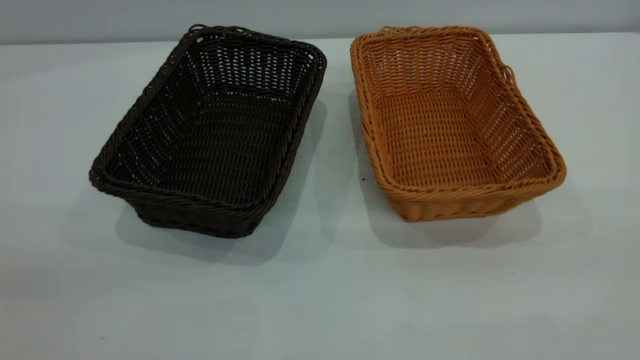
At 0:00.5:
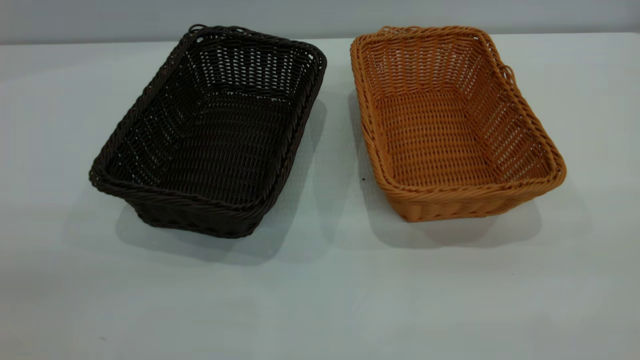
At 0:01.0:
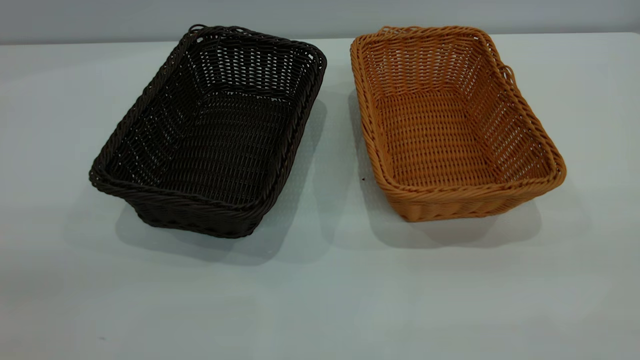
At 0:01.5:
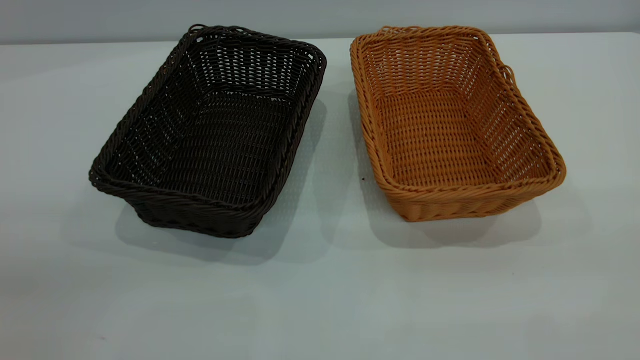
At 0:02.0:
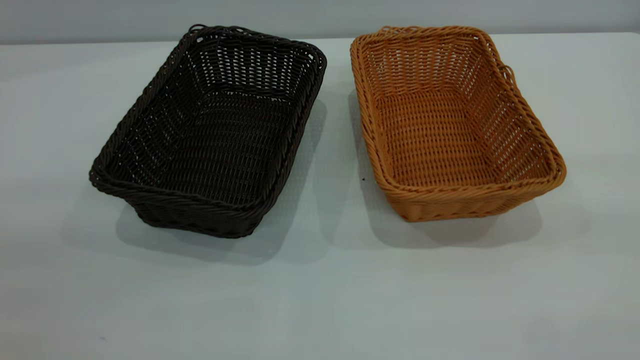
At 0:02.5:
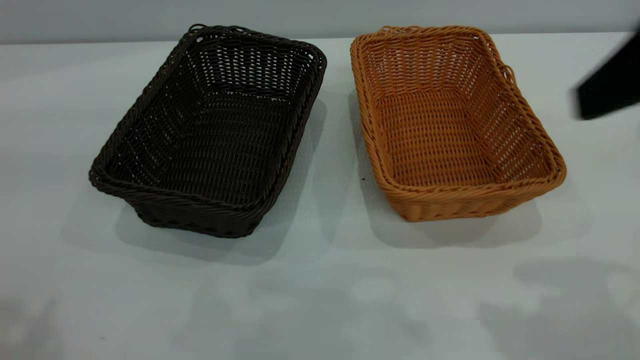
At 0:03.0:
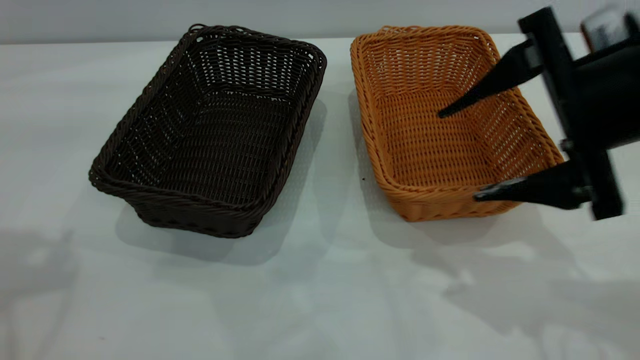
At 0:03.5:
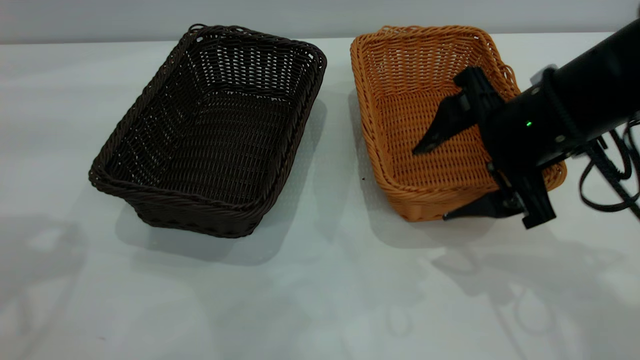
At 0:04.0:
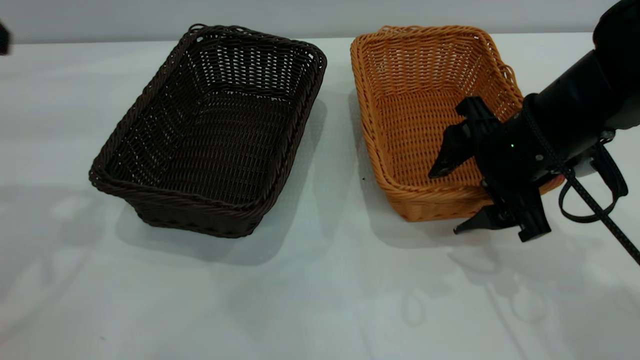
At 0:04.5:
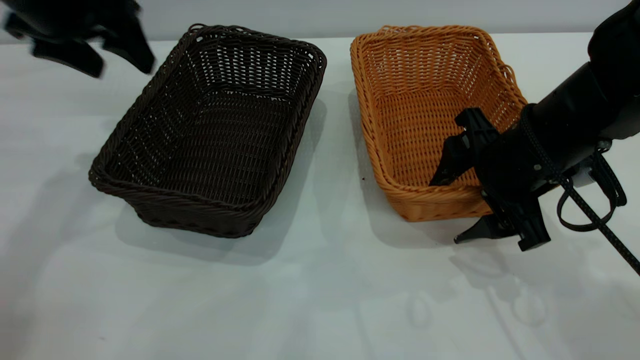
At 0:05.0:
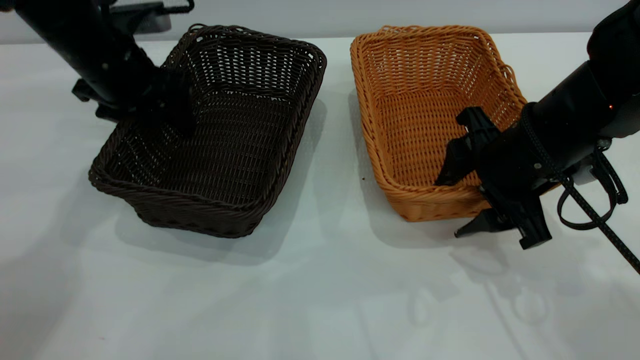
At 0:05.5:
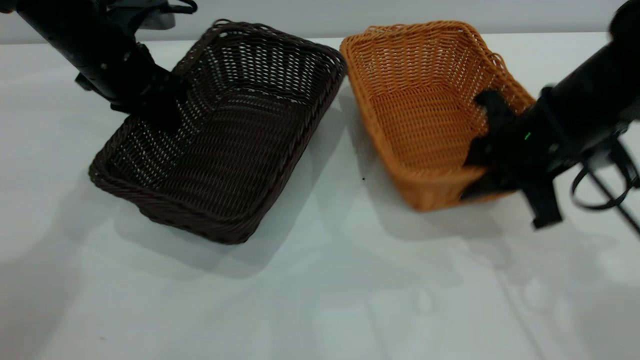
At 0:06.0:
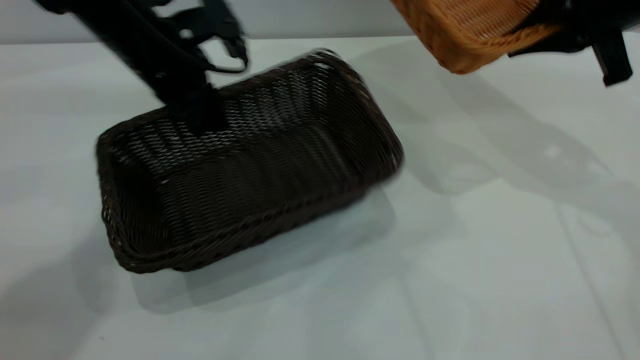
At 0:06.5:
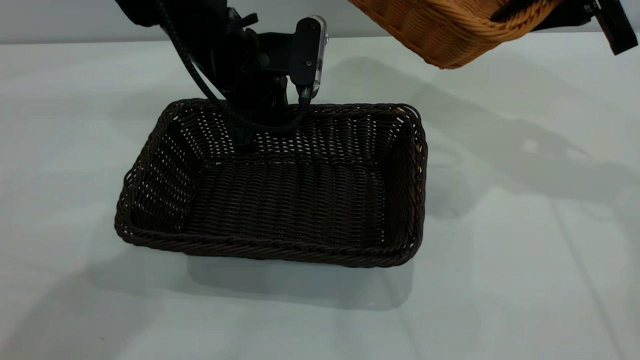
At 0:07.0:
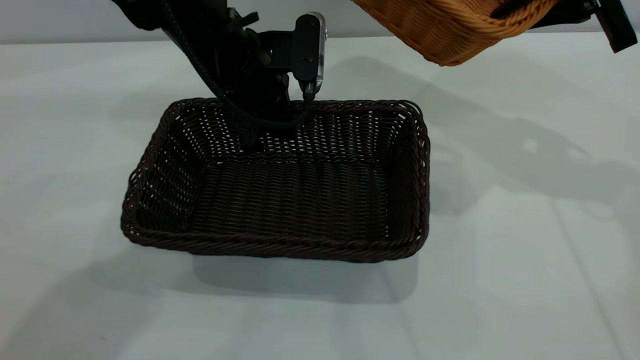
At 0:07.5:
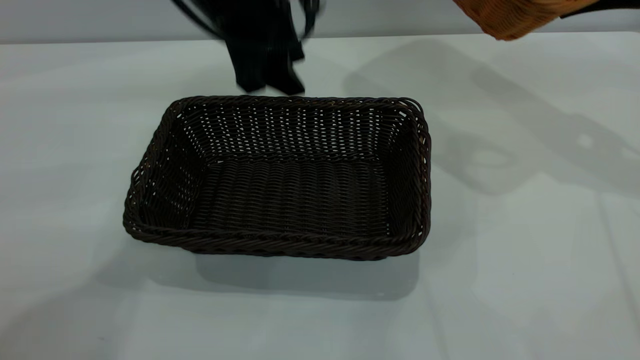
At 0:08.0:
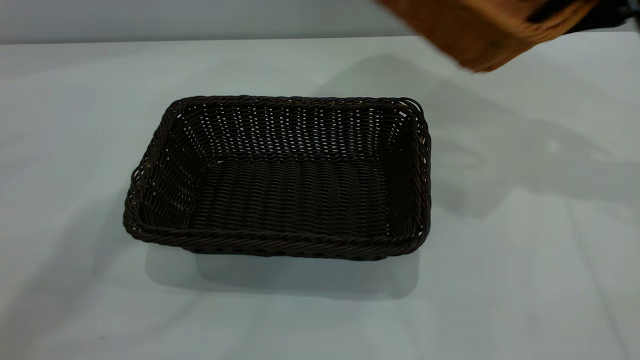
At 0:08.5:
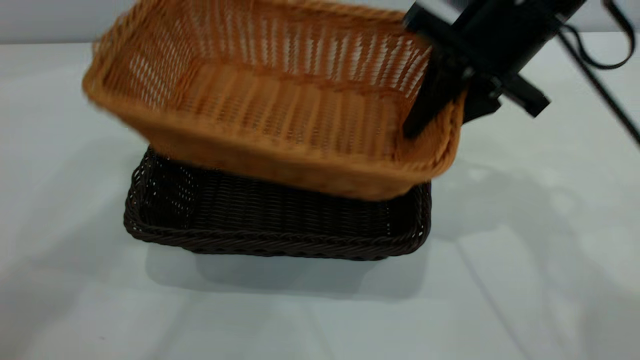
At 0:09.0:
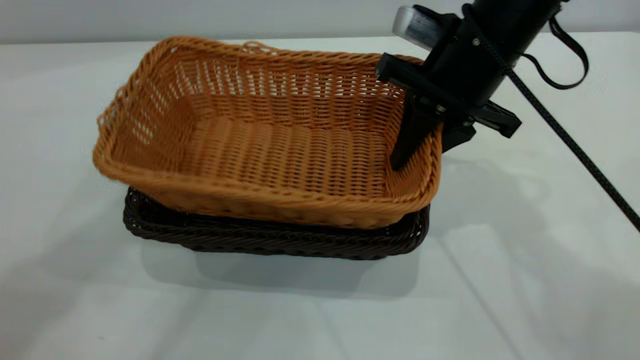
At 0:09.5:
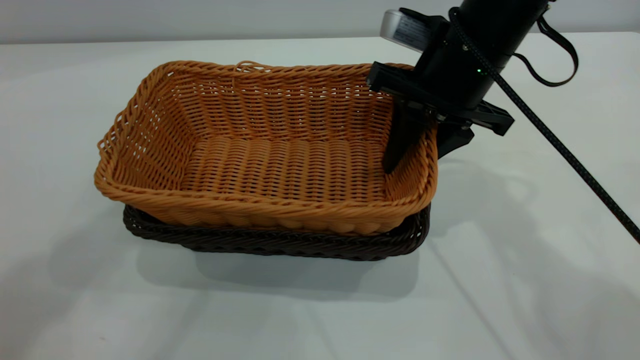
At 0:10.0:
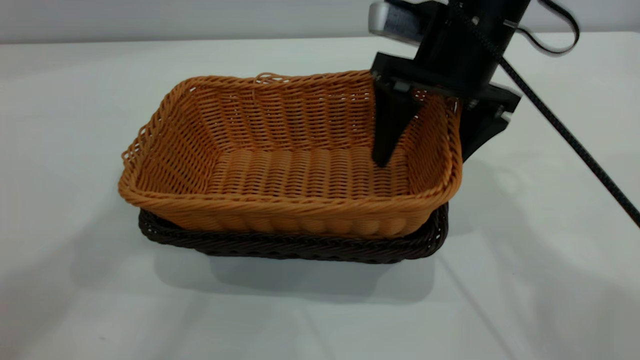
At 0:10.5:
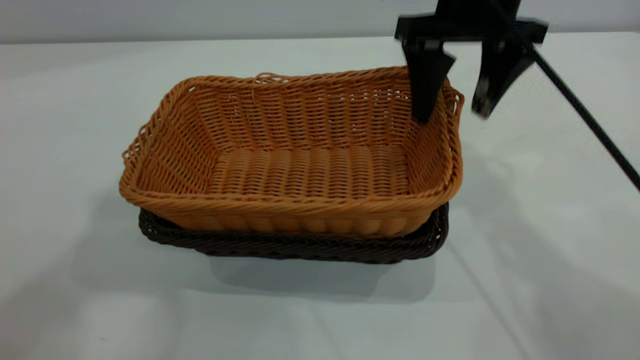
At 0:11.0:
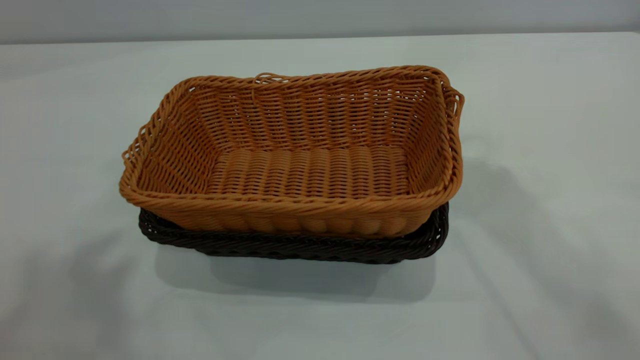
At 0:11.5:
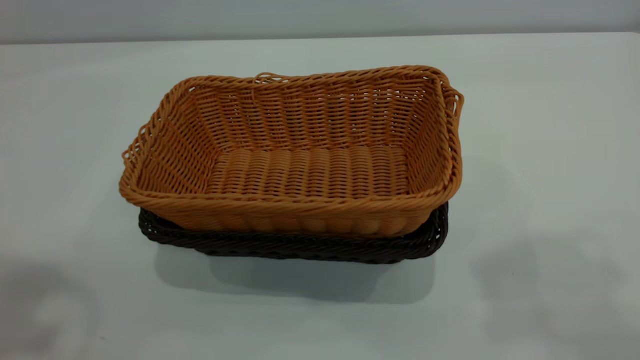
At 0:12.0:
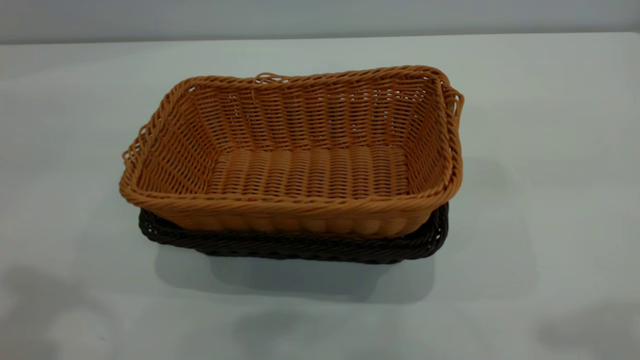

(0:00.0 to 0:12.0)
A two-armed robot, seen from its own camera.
Task of the whole recording: the left gripper grasp the black basket and place it in the center of the table, the right gripper grasp the brown basket and place it inside the black one.
Step, 0:00.0 - 0:05.5: Pick up the light basket with the right gripper.
Step, 0:06.0 - 0:07.5: Move the dark basket to the center of view.
Step, 0:08.0 - 0:10.5: Place the light basket on the dark basket.
0:02.0 - 0:04.0: The right gripper shifts roughly 35 cm downward and forward.
0:04.0 - 0:06.0: The right gripper heads upward, to the right and forward, covering some 15 cm, and closes up. The left gripper goes roughly 25 cm to the right, downward and forward, and closes up.
0:06.0 - 0:08.0: The left gripper travels upward by approximately 30 cm, and opens.
0:08.0 - 0:10.0: The left gripper is displaced upward and backward by approximately 10 cm, while the right gripper moves to the left, some 15 cm, and opens.
0:10.0 - 0:12.0: The right gripper is displaced backward, upward and to the right by about 30 cm. The left gripper is displaced downward, backward and to the left by about 20 cm.

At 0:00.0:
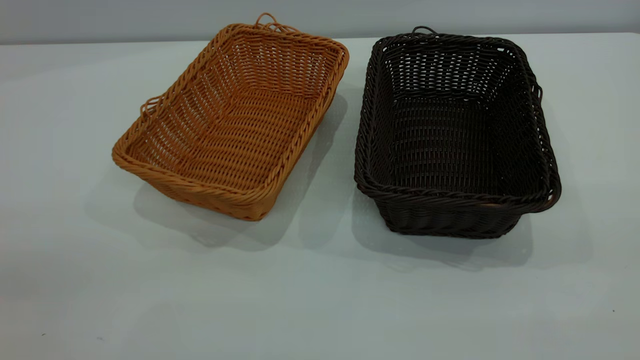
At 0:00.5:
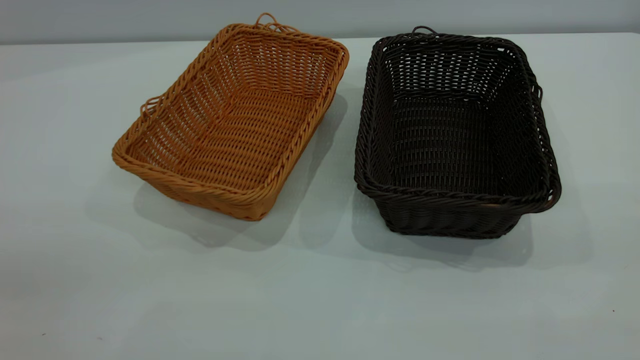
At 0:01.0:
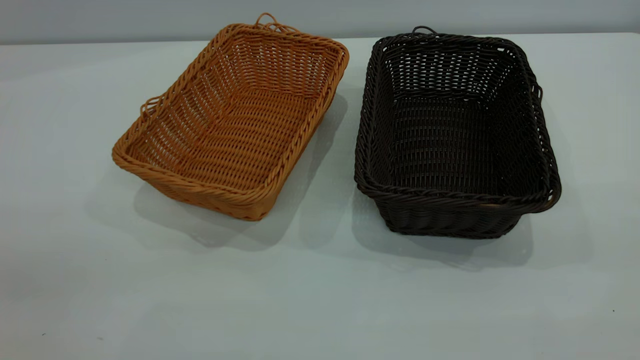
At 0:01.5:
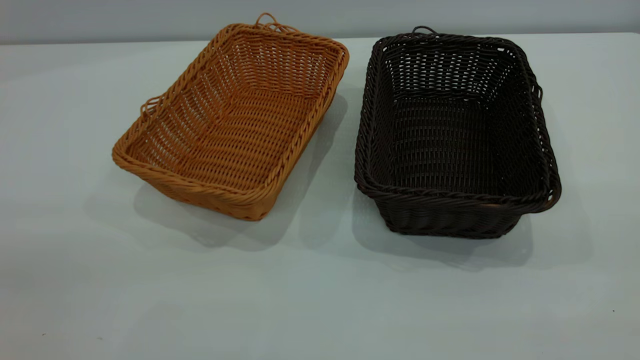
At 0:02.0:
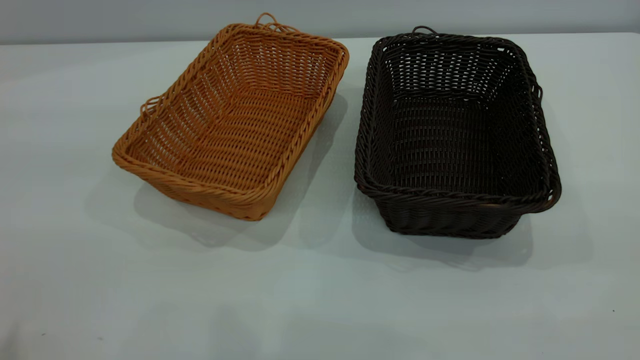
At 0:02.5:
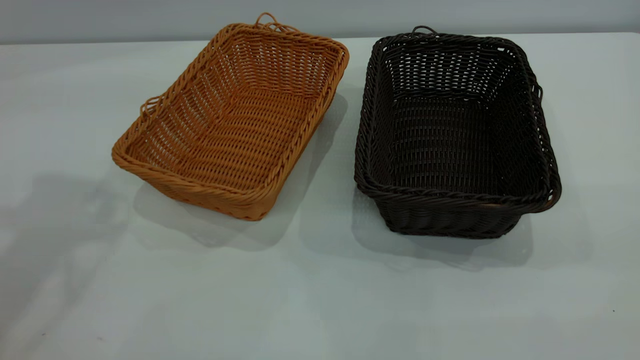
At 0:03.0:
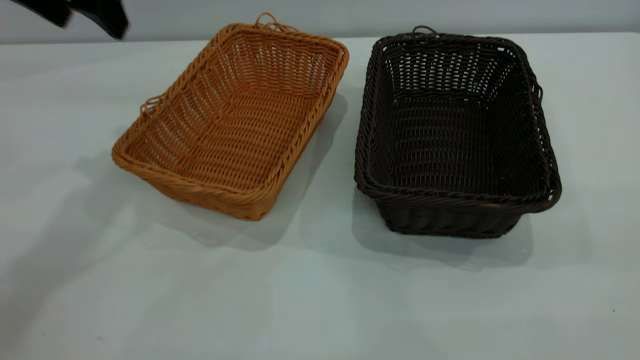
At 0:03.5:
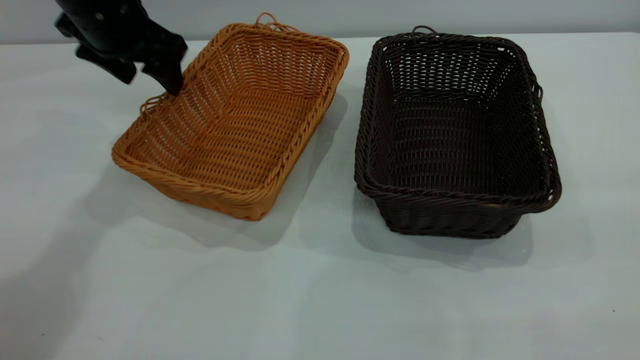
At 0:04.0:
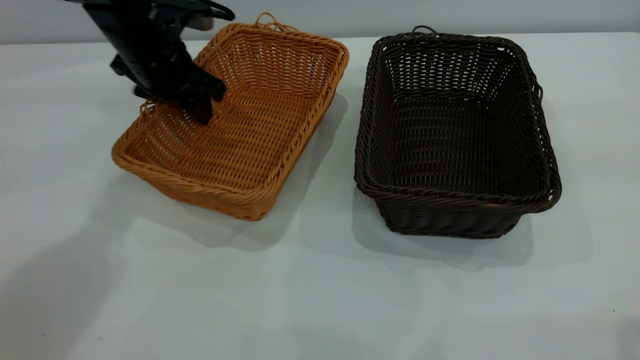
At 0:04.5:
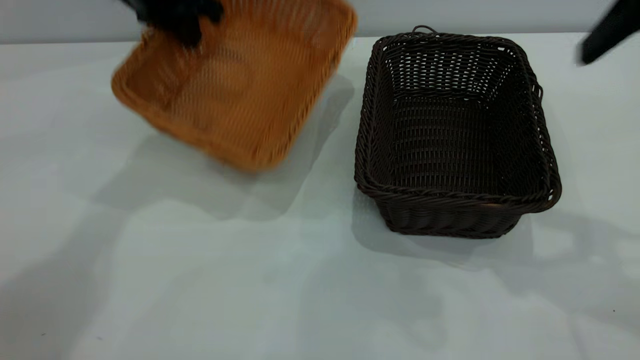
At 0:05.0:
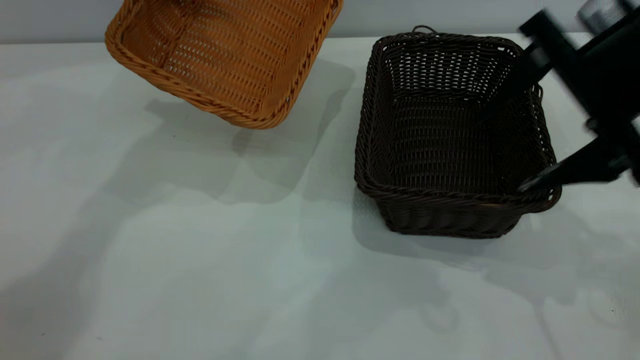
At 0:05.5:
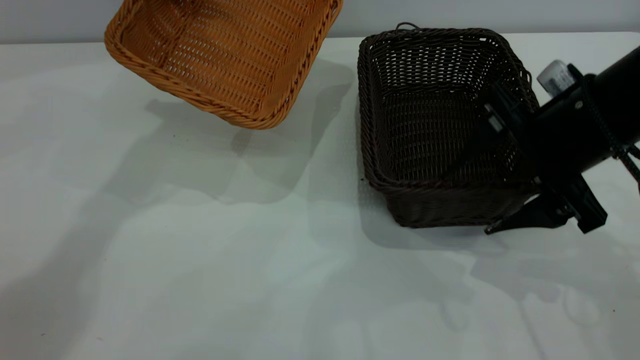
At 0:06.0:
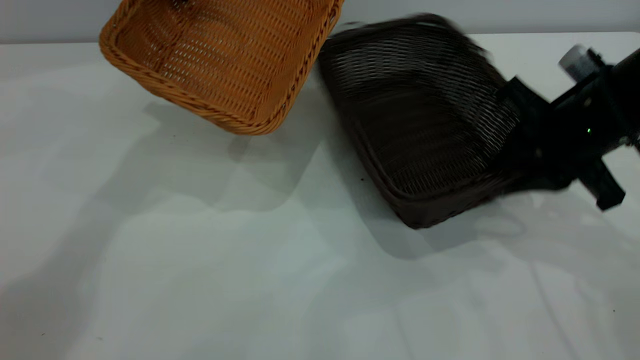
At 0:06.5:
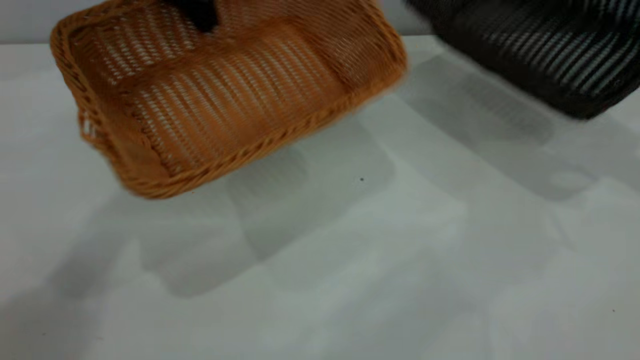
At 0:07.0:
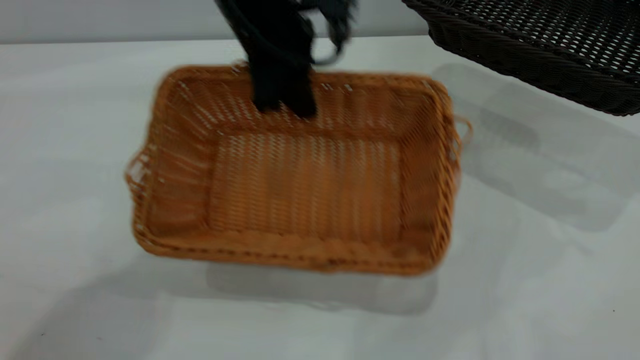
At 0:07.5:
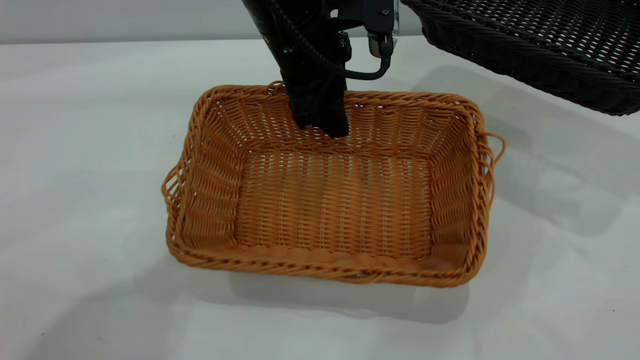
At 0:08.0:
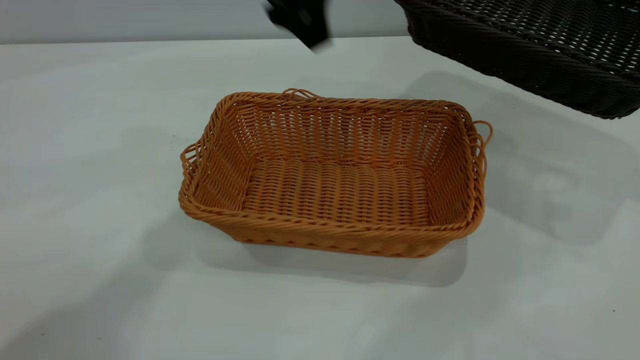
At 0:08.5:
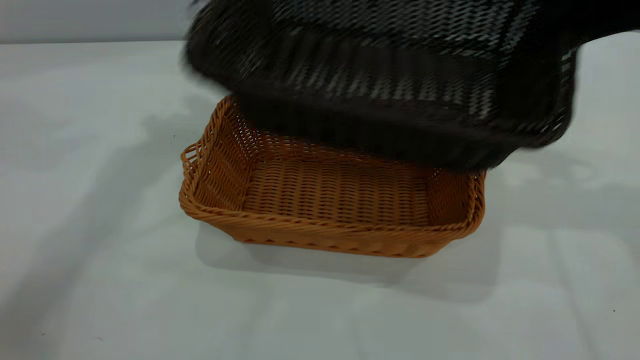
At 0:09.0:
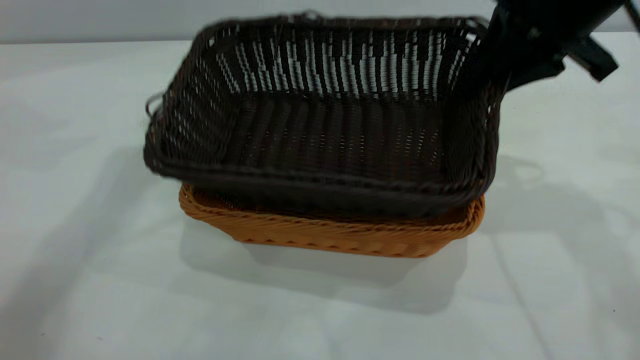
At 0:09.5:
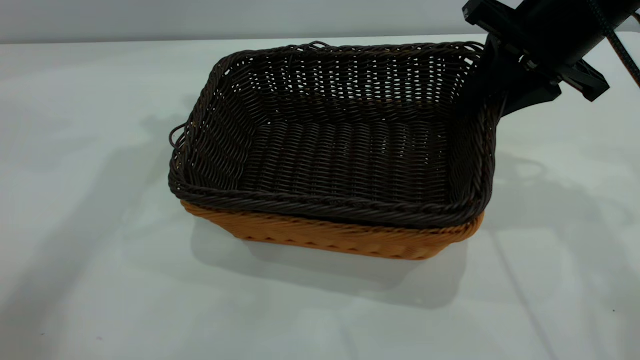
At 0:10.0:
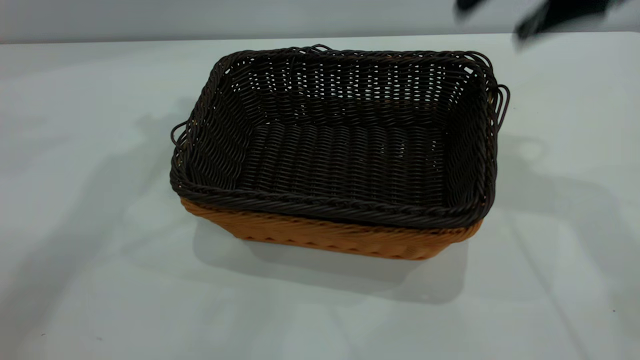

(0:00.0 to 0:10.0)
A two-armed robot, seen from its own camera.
Task of the whole recording: the left gripper grasp the brown basket and place it in the center of the table, the right gripper grasp the black basket and place it inside the brown one.
Step, 0:00.0 - 0:06.0: Pick up the light basket with the right gripper.
Step, 0:06.5 - 0:07.5: Place the light-colored basket in the center.
Step, 0:08.0 - 0:09.5: Place the dark basket on top of the light basket.
0:02.0 - 0:04.0: The left gripper goes about 40 cm forward and downward, and closes.
0:04.0 - 0:06.0: The right gripper is displaced downward and forward by some 30 cm, and closes its fingers; the left gripper moves upward, some 15 cm, and closes up.
0:06.0 - 0:08.0: The left gripper moves to the right and backward, about 10 cm, and opens up, while the right gripper goes some 20 cm to the right and upward.
0:08.0 - 0:10.0: The right gripper moves to the left, roughly 20 cm, and opens its fingers. Meanwhile the left gripper shifts about 15 cm to the left and upward.
